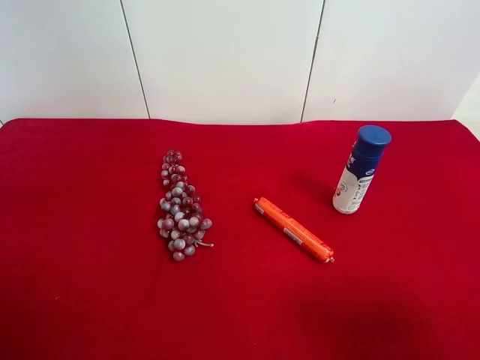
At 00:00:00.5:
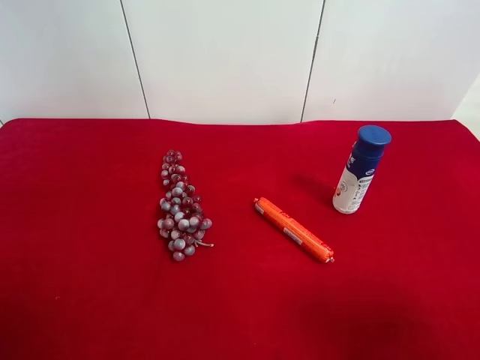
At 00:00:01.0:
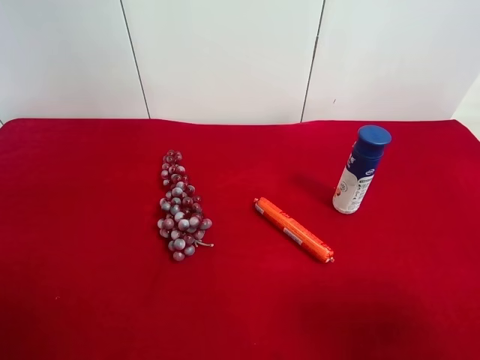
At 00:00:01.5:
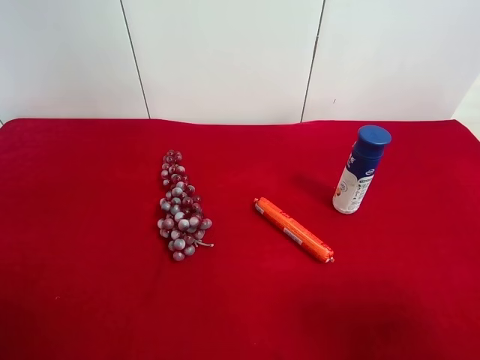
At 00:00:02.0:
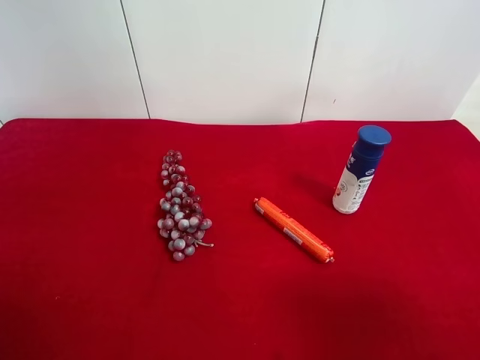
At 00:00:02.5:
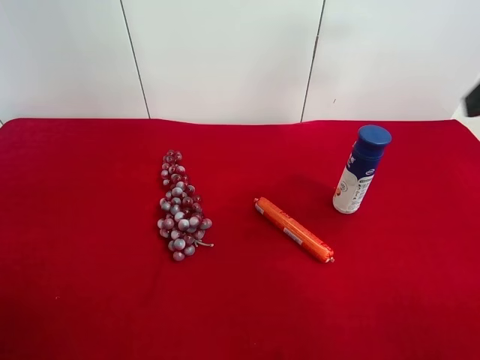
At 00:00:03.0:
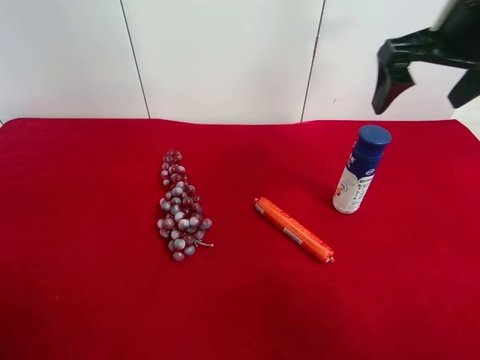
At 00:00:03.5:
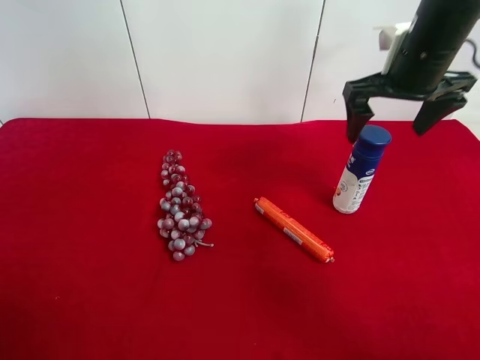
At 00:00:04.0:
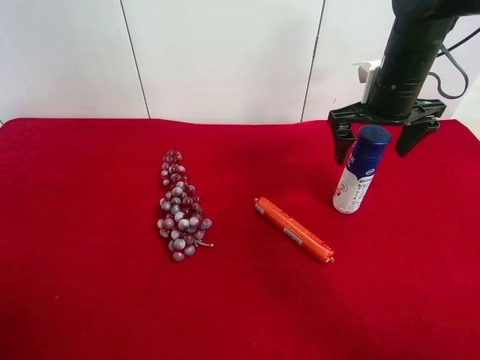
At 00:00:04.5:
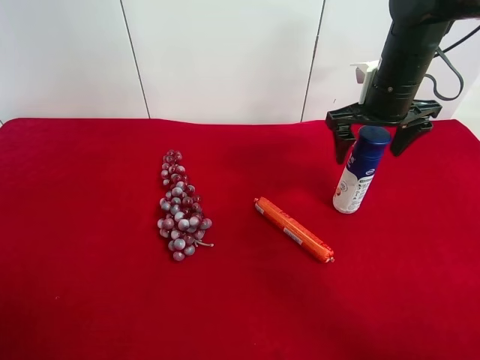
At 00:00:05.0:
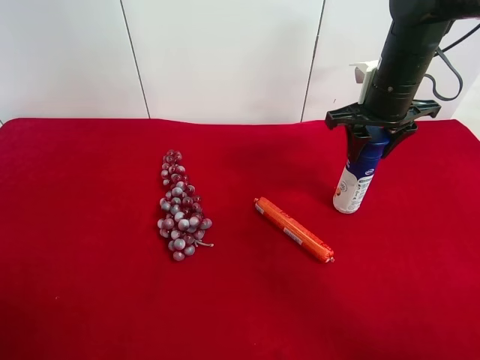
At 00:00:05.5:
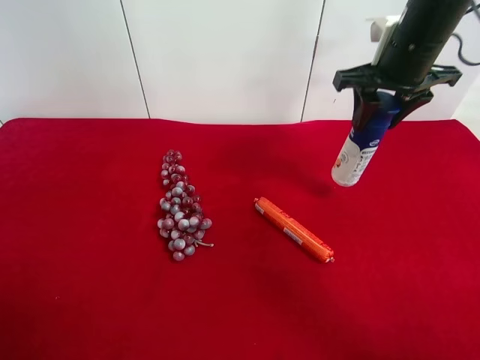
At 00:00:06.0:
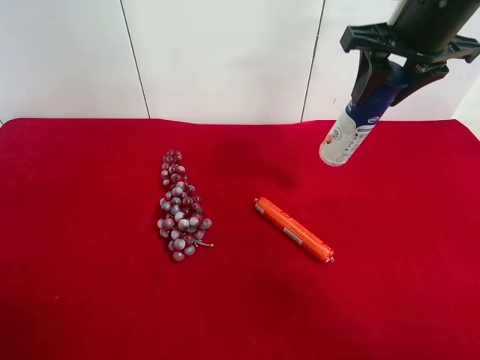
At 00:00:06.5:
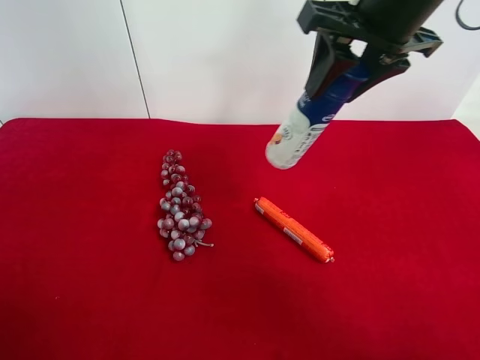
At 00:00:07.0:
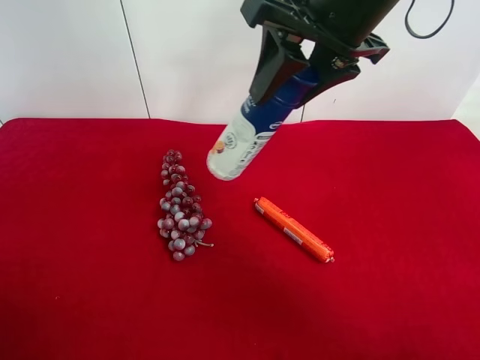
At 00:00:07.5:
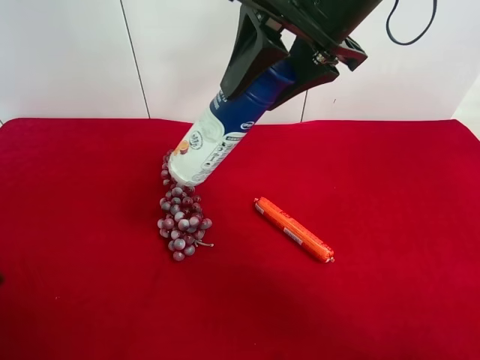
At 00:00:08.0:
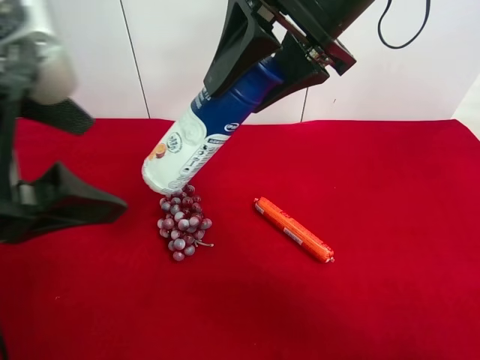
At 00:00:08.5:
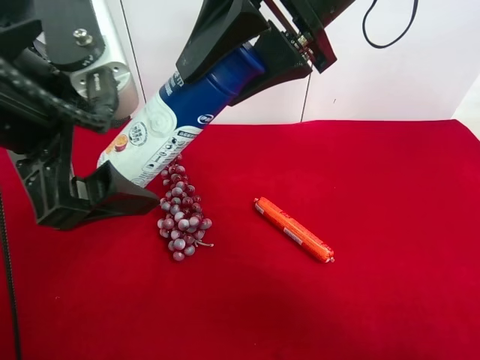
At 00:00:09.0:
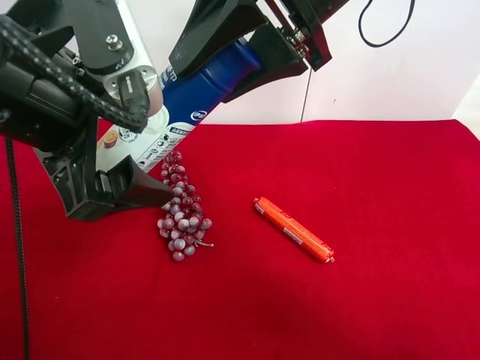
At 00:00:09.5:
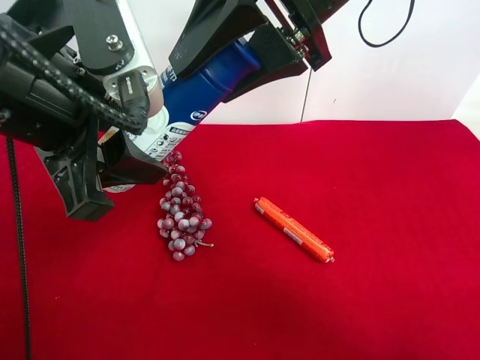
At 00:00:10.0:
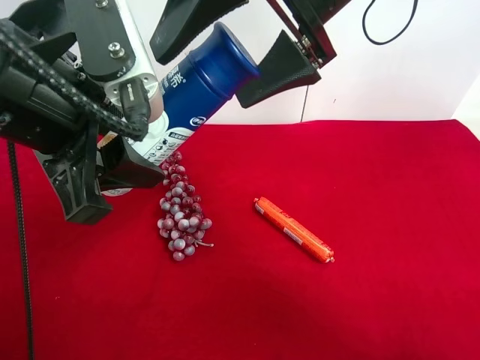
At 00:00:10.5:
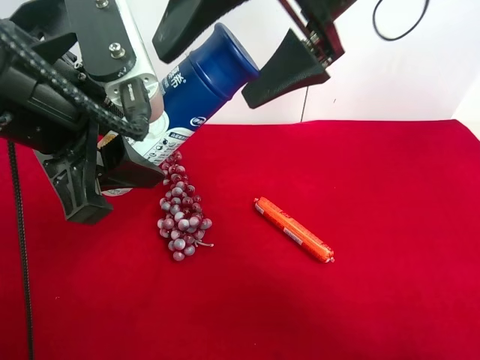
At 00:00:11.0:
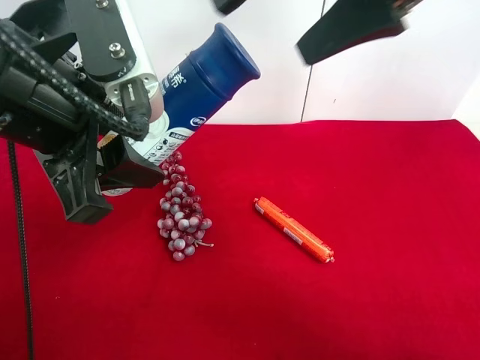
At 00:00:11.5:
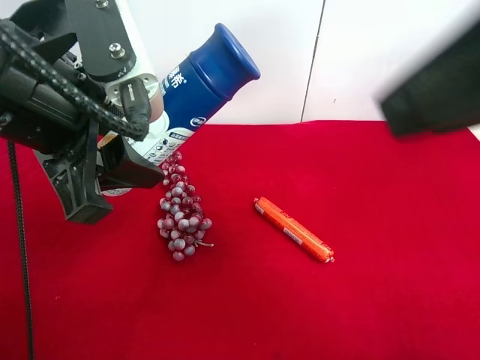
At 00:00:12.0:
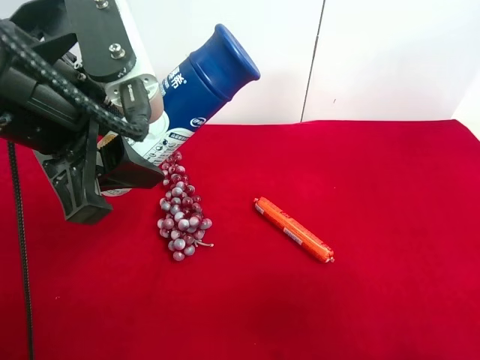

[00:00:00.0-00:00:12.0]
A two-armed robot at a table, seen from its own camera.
Task of the whole recording: use the right gripper to pick up the item and transfer it from the right gripper to the left gripper.
Step, 00:00:00.0 to 00:00:04.5: Use the right gripper to grab the yogurt on the right side of the table.
Step, 00:00:05.0 to 00:00:10.0: Pass the yogurt to the left gripper.
00:00:02.0 to 00:00:04.0: The right gripper moves forward, approximately 35 cm.
00:00:04.0 to 00:00:06.0: The right gripper travels upward by some 10 cm, and closes.
00:00:06.0 to 00:00:08.0: The left gripper shifts some 20 cm forward, to the right and upward. Meanwhile the right gripper heads to the left and backward, covering about 15 cm.
00:00:08.0 to 00:00:10.0: The left gripper closes. The right gripper opens its fingers.
00:00:10.0 to 00:00:12.0: The right gripper shifts about 30 cm backward and to the right.

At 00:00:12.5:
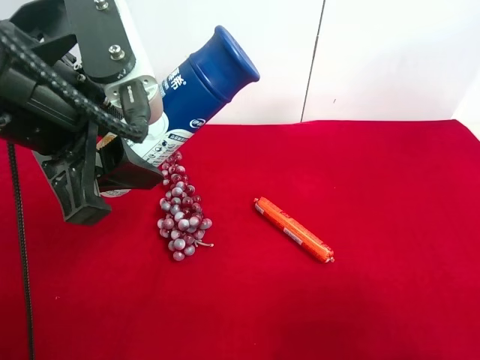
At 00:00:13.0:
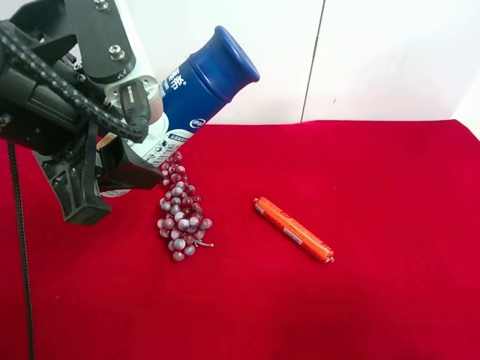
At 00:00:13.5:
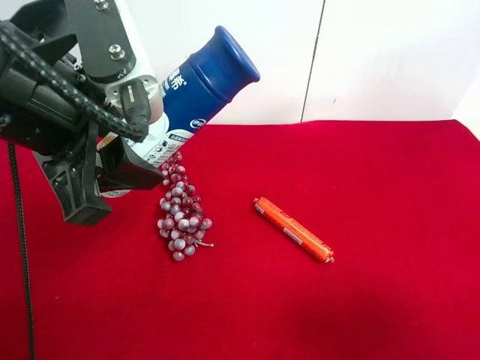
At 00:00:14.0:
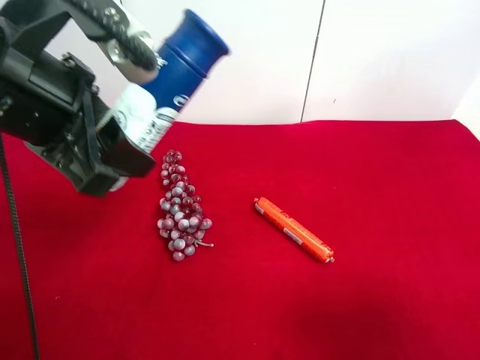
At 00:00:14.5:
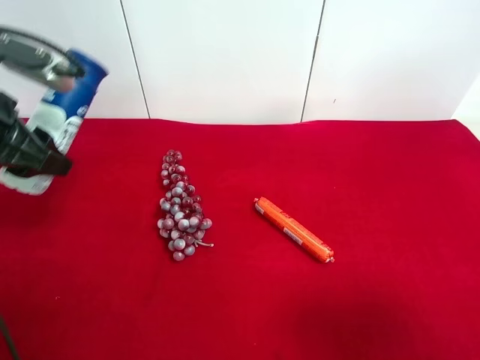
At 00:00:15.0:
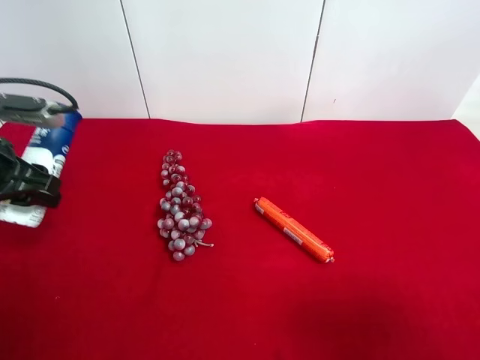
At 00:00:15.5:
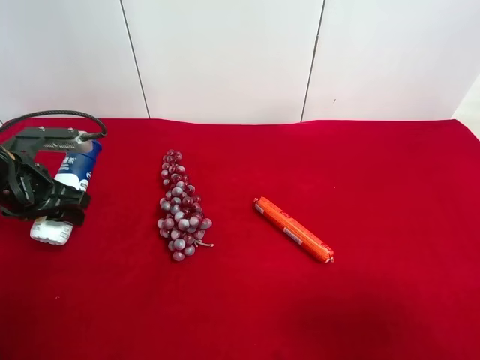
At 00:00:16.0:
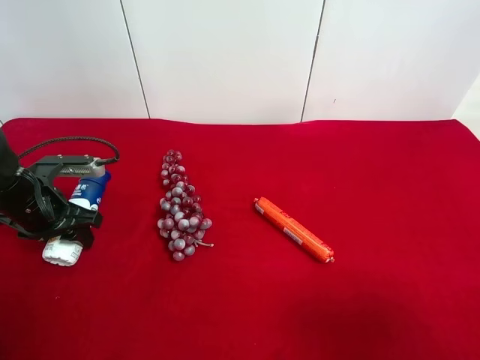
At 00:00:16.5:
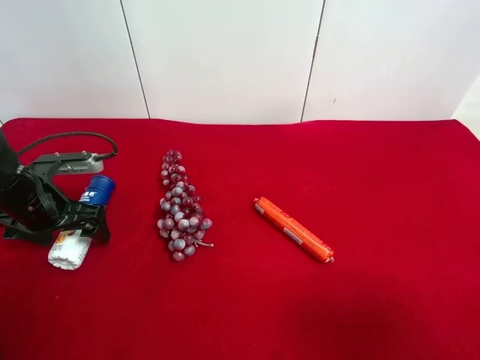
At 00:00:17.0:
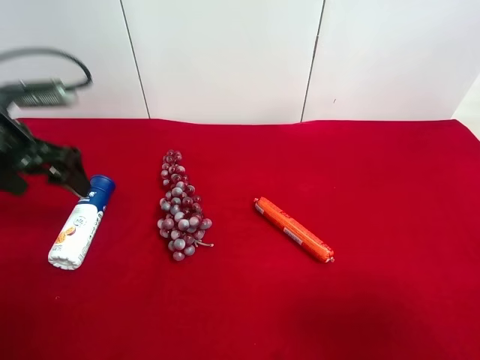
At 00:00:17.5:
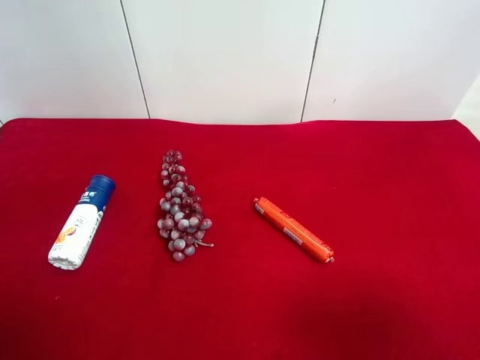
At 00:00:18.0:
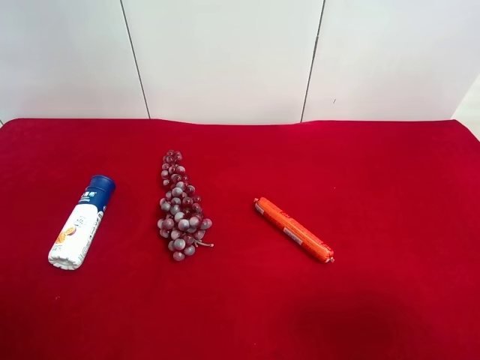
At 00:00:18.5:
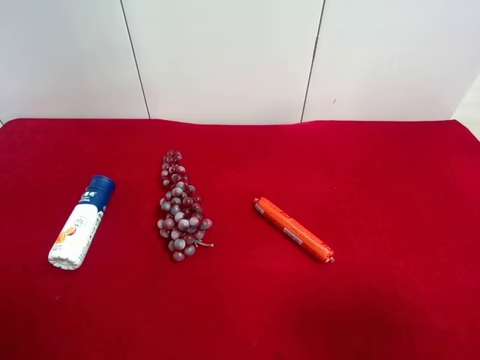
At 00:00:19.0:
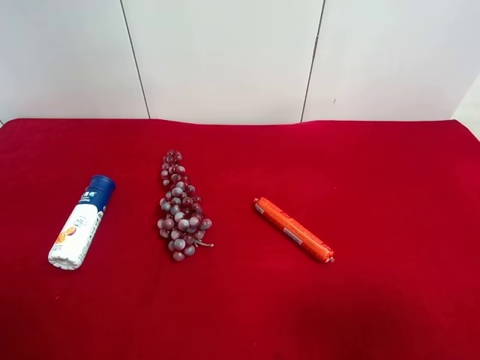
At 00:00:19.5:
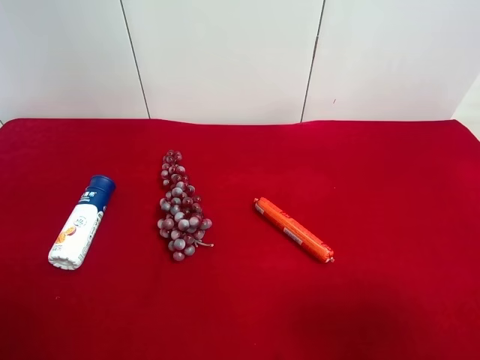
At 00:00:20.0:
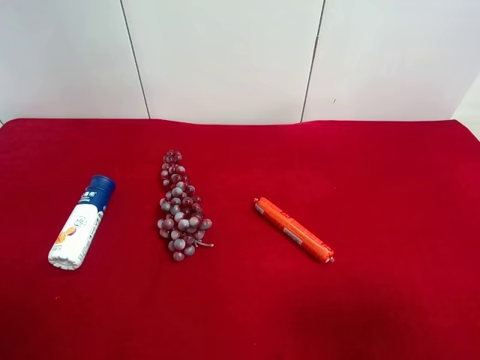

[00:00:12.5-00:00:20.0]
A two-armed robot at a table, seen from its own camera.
Task of the whole recording: use the right gripper to pick up the item and transfer it from the right gripper to the left gripper.
Step, 00:00:12.5 to 00:00:17.5: The left gripper places yogurt on the left side of the table.
00:00:12.5 to 00:00:14.5: The left gripper moves to the left, forward and downward, roughly 15 cm.
00:00:14.5 to 00:00:16.5: The left gripper moves downward, approximately 15 cm, and opens up.
00:00:16.5 to 00:00:18.0: The left gripper travels upward and backward by approximately 40 cm.
